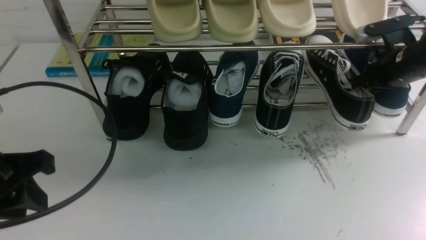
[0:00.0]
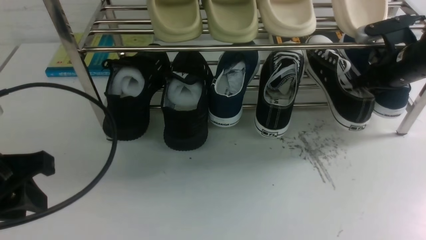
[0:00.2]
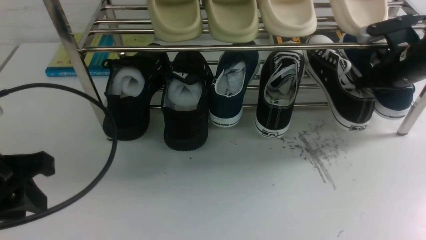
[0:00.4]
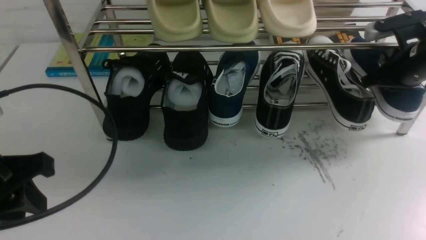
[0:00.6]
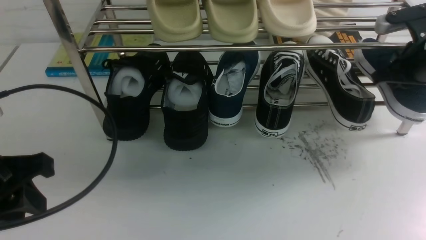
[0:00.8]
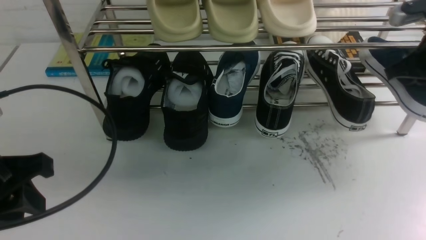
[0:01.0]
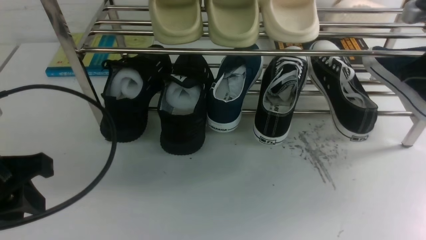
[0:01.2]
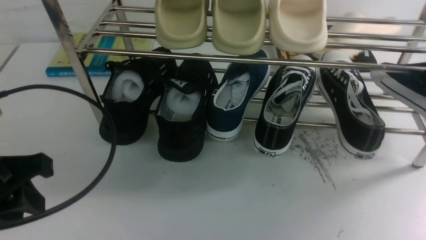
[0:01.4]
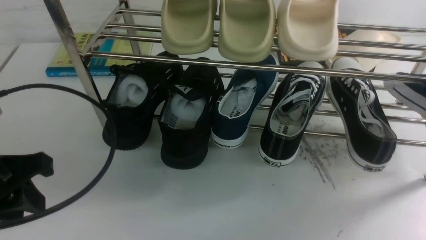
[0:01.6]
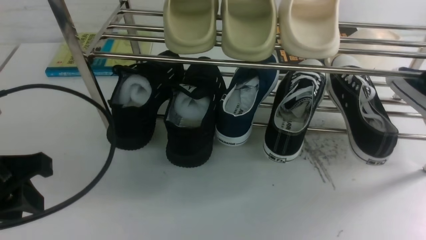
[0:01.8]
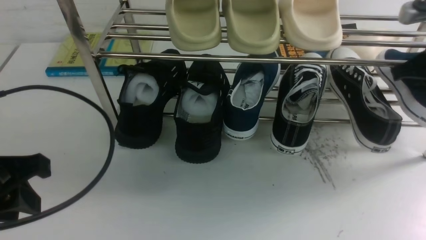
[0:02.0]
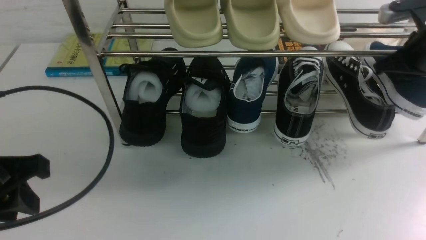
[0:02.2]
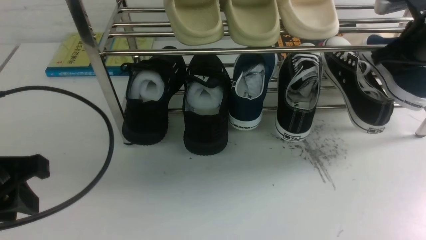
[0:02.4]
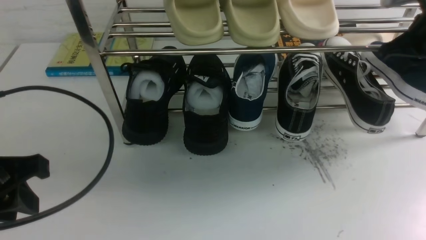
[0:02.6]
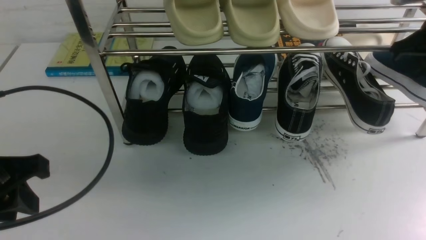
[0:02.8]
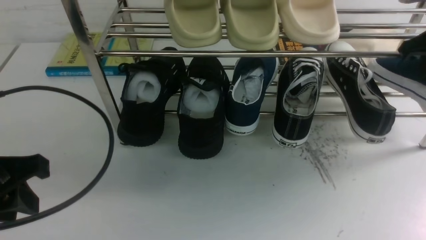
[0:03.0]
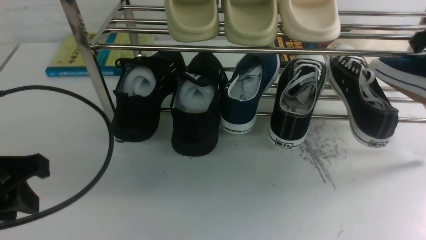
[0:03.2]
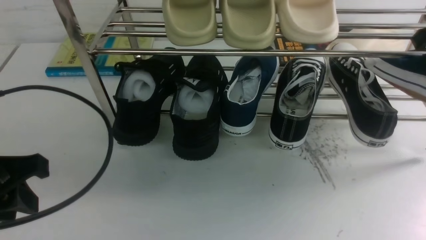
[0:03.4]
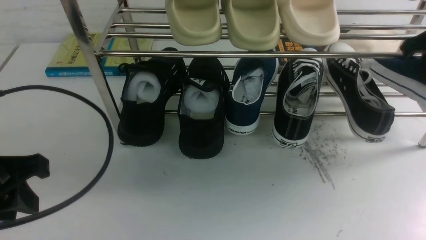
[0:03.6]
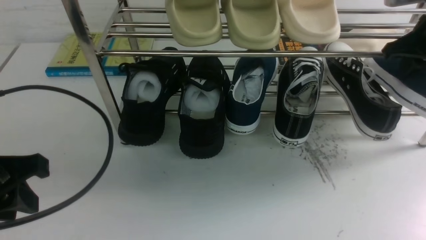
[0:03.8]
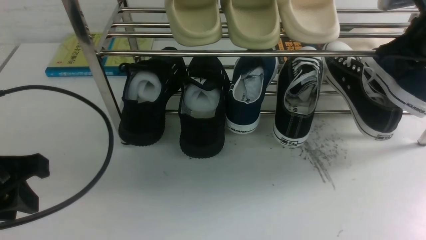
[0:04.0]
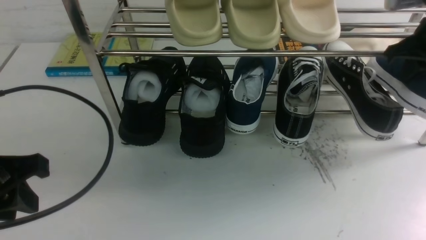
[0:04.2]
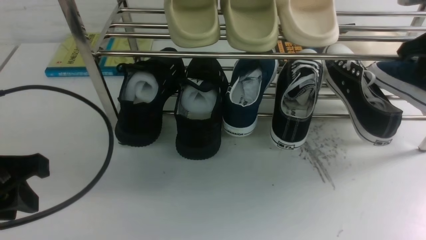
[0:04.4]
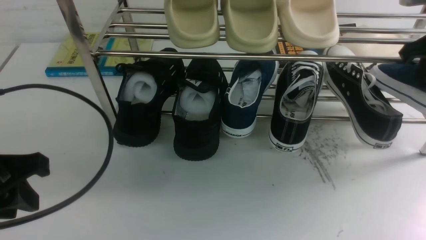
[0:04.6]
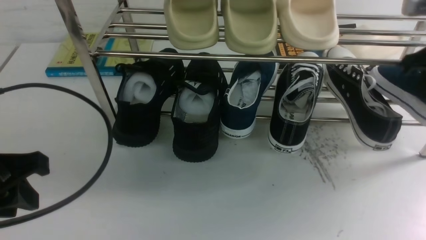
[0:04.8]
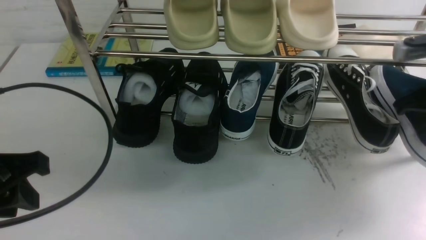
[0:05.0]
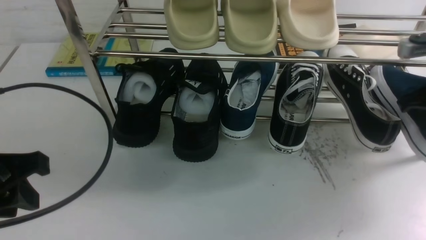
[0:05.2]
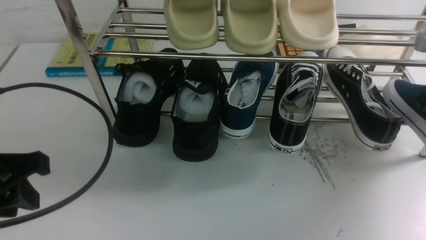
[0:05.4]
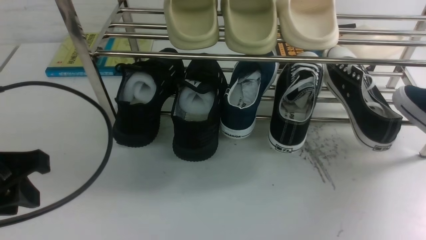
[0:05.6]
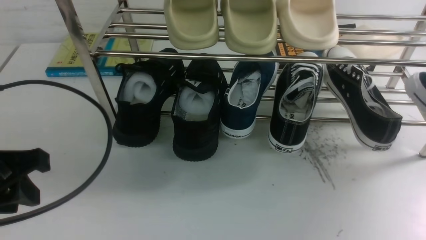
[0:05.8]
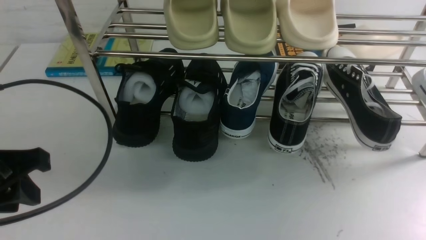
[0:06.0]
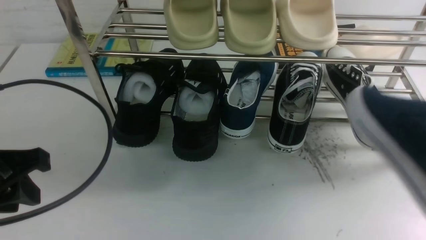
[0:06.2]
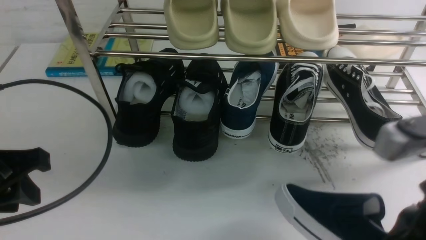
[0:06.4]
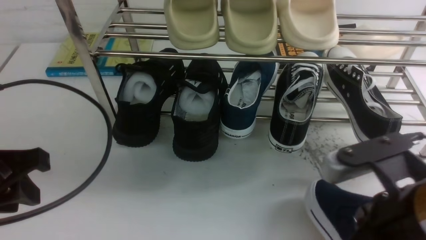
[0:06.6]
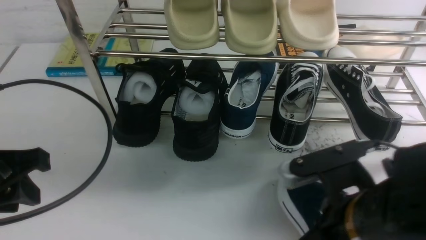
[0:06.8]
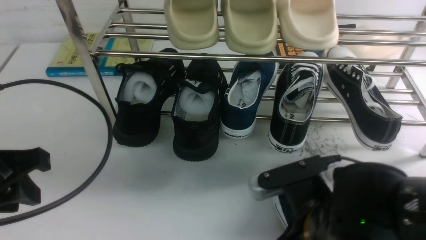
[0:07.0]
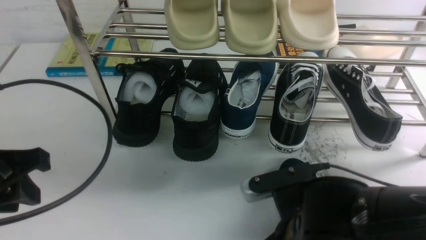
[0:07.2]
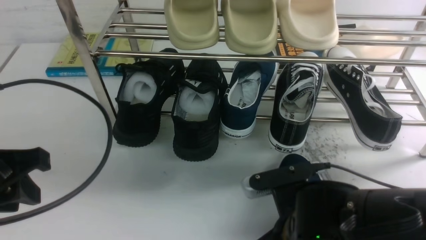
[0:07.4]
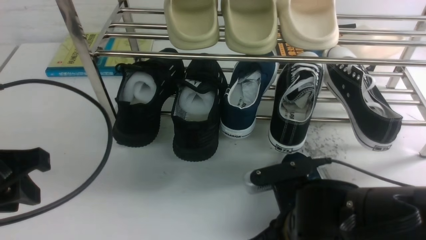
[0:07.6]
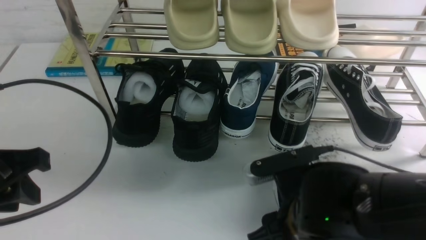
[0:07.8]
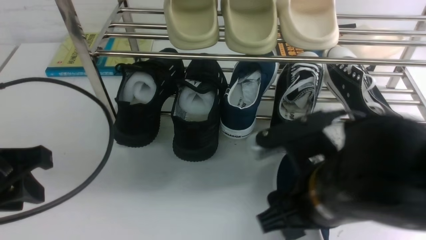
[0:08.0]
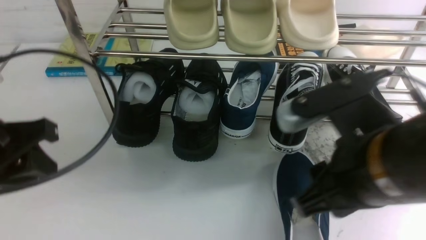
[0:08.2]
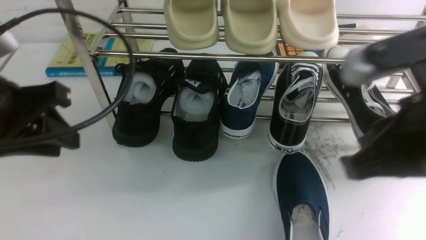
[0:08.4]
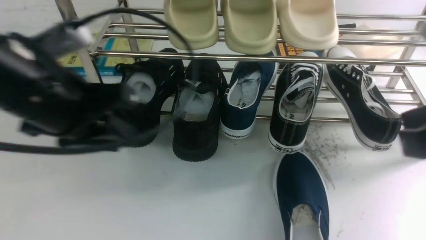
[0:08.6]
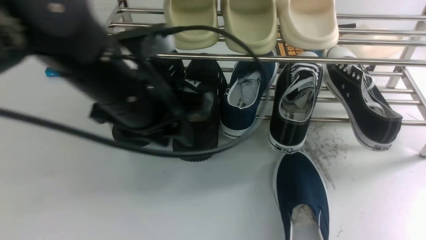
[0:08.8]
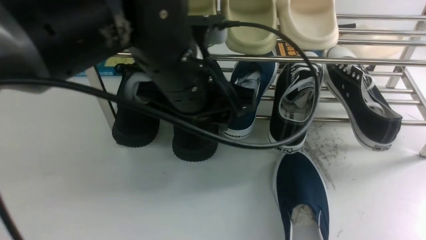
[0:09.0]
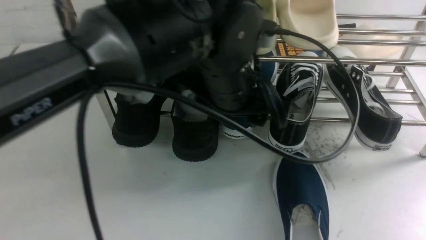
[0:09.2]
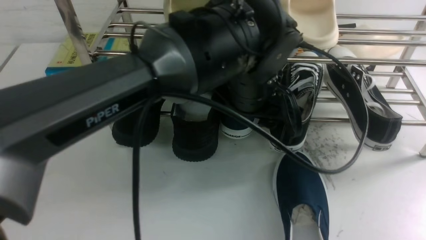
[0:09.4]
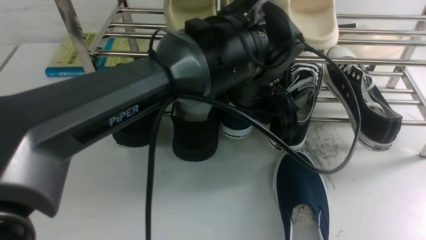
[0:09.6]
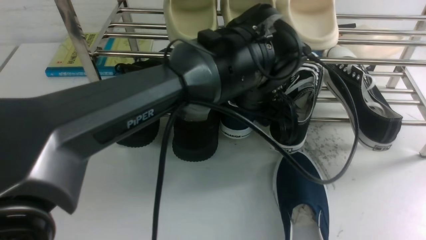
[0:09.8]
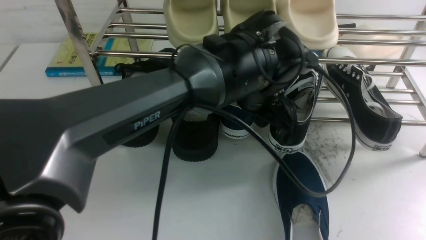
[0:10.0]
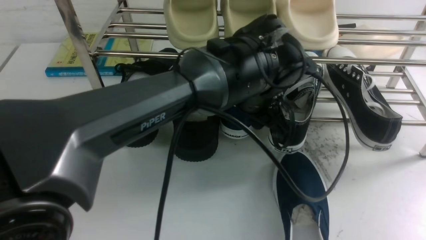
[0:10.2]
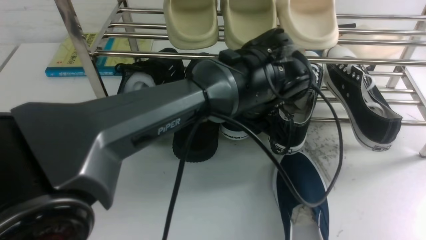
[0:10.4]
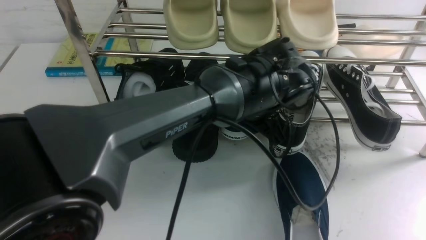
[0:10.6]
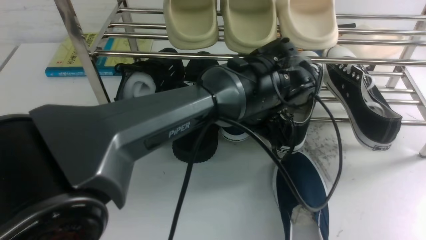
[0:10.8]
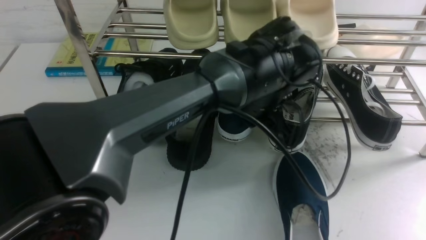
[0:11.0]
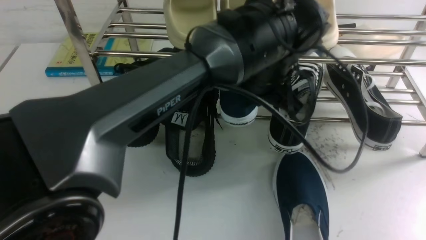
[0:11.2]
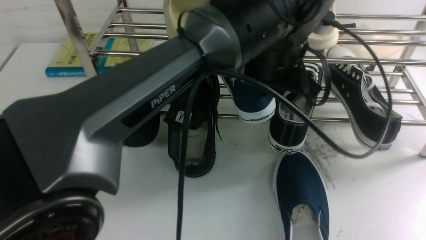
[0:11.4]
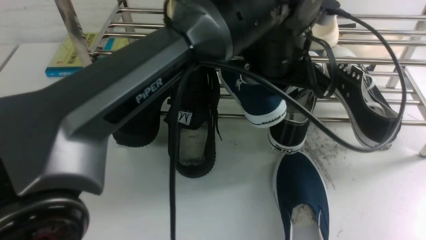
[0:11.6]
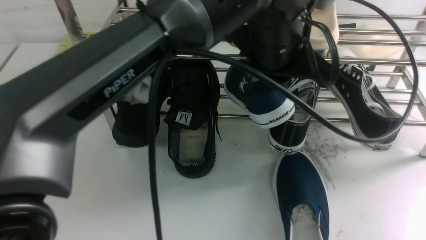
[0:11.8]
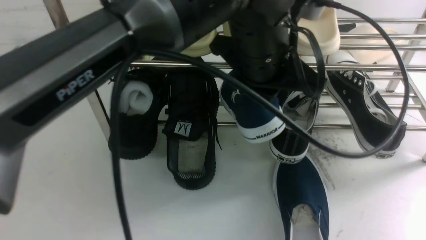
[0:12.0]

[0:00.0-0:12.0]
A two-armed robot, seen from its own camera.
Step, 0:01.2 to 0:08.0: use the right arm to take out the clamped shoe from the shoe rack and put it down.
Step, 0:08.2 to 0:11.6: use the left arm to clamp a shoe in the middle of the shoe rack.
0:00.0 to 0:01.6: The right gripper is displaced backward and upward by roughly 20 cm, and closes.
0:01.6 to 0:03.0: The right gripper heads forward, covering some 5 cm.
0:03.0 to 0:04.4: The grippers make only small movements.
0:04.4 to 0:06.0: The right gripper goes roughly 15 cm backward.
0:06.0 to 0:07.6: The right gripper goes approximately 25 cm to the left and downward, and opens up.
0:07.6 to 0:09.0: The left gripper shifts about 25 cm to the right and forward, and opens, while the right gripper heads upward and to the right, covering approximately 25 cm, and closes up.
0:09.0 to 0:10.4: The left gripper moves to the right, downward and forward, approximately 15 cm; the right gripper opens.
0:10.4 to 0:12.0: The left gripper moves upward, approximately 10 cm, and closes up.

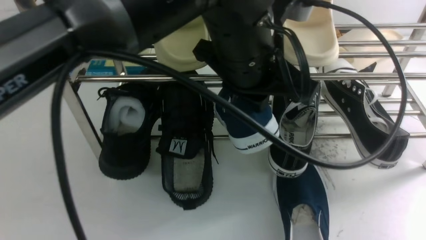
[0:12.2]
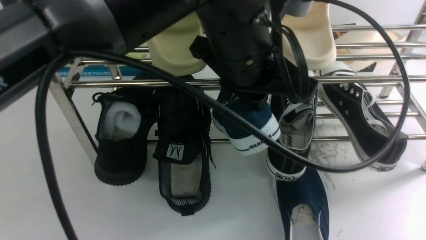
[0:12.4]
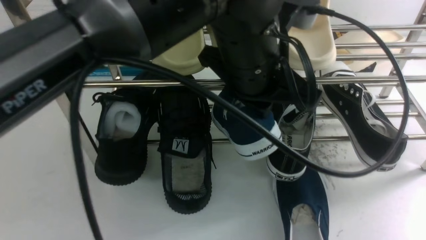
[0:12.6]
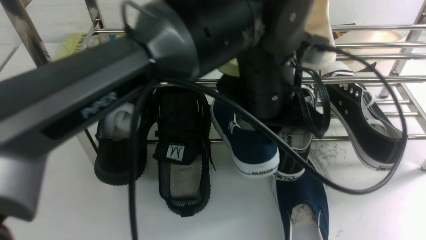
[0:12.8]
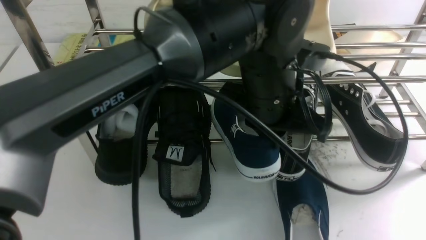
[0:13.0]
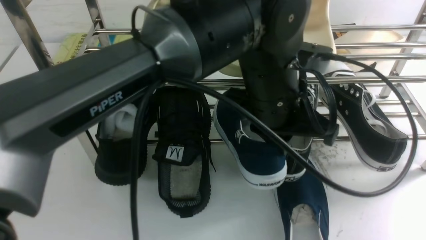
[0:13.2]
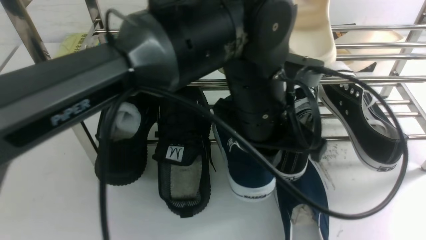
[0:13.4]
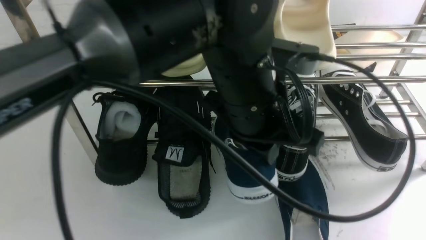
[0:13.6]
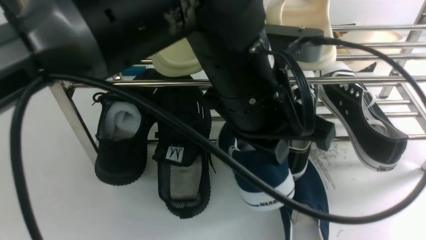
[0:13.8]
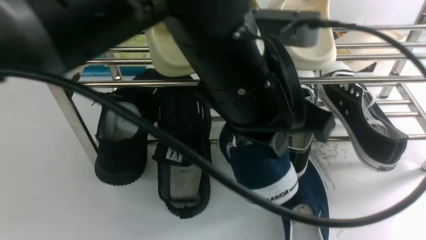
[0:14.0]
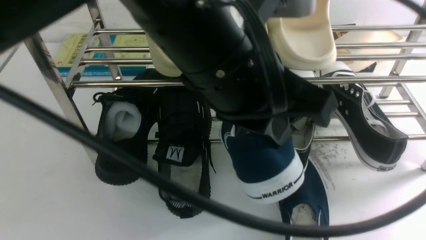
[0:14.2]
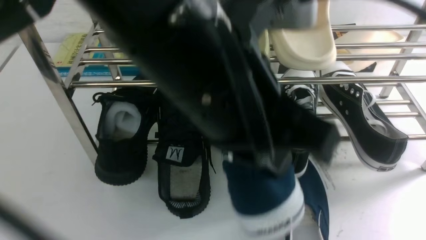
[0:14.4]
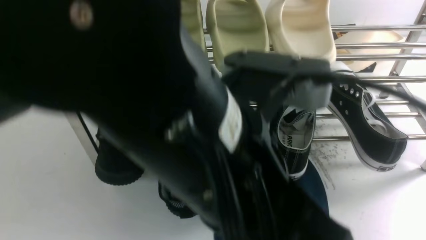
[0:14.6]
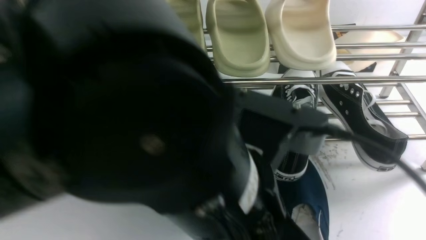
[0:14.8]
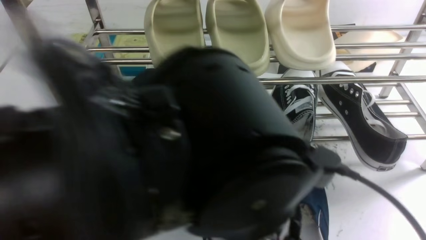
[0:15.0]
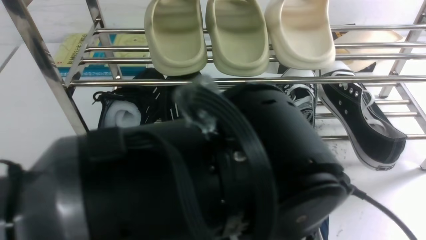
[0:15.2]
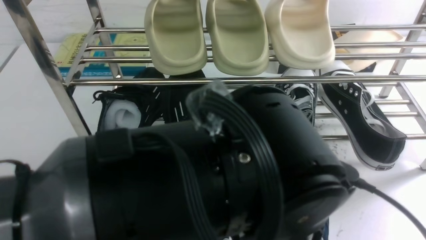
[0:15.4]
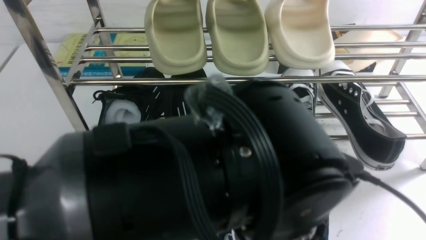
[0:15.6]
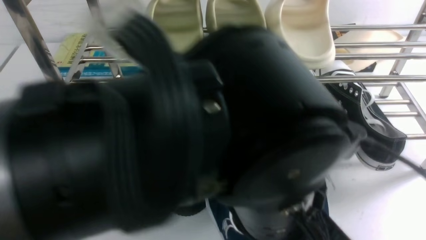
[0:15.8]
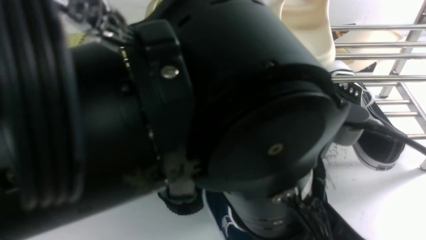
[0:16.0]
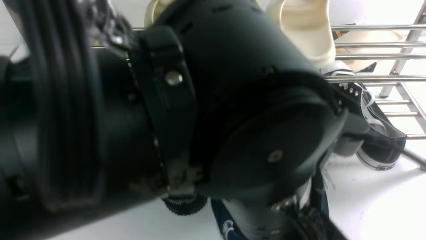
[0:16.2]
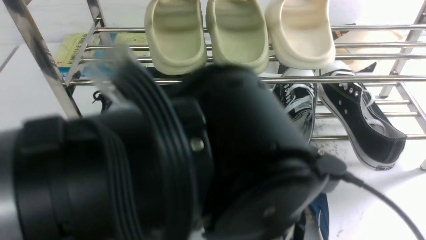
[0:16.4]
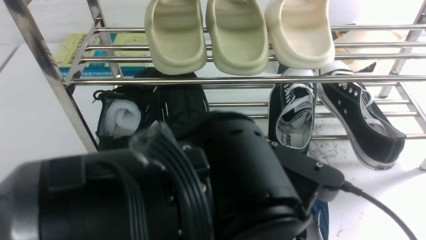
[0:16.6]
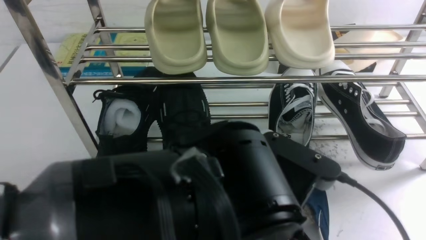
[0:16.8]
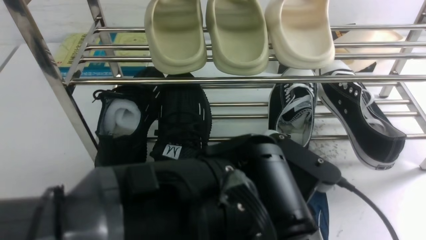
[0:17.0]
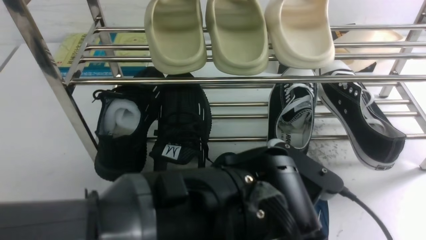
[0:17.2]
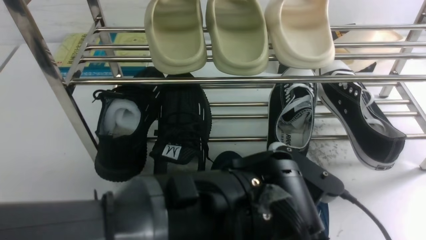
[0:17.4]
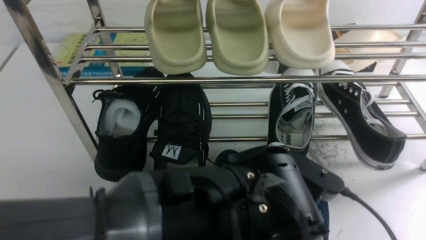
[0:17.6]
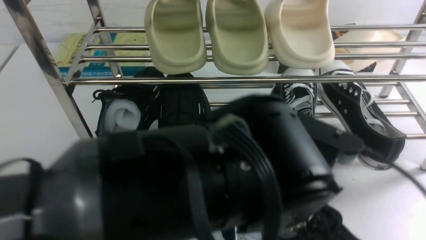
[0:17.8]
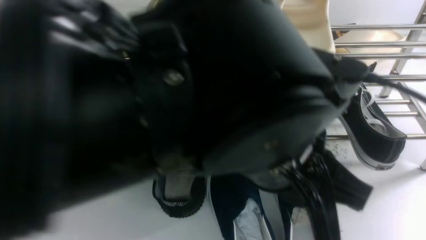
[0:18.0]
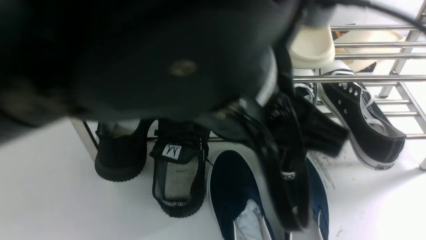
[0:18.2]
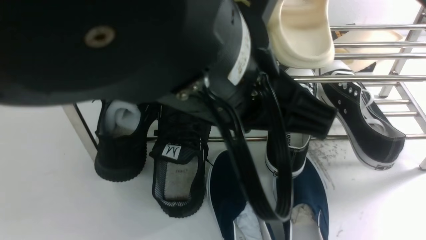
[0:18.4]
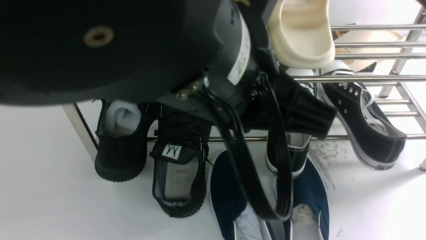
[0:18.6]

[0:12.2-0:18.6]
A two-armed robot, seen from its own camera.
0:13.8 to 0:15.4: The left gripper shifts roughly 10 cm backward and downward.
0:17.0 to 0:18.6: The left gripper travels upward by about 15 cm, and opens, then closes again; the right gripper is displaced downward by roughly 10 cm, and closes its fingers.
